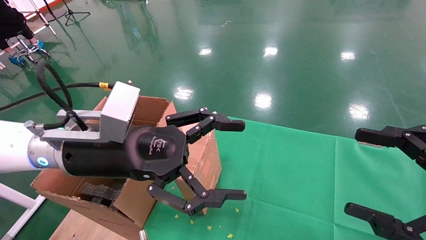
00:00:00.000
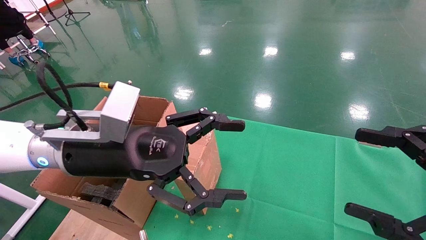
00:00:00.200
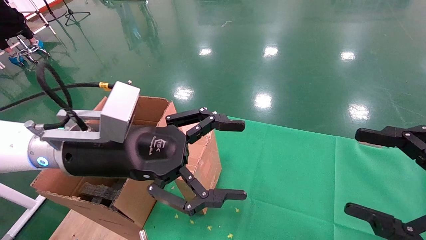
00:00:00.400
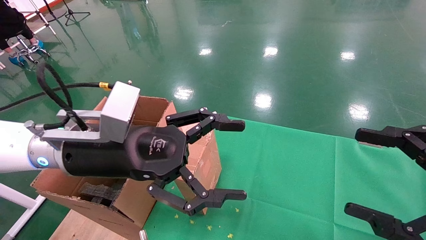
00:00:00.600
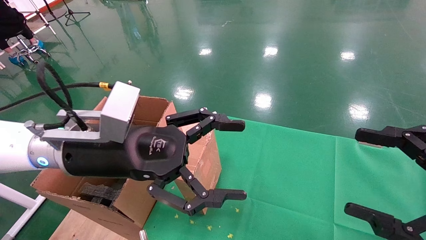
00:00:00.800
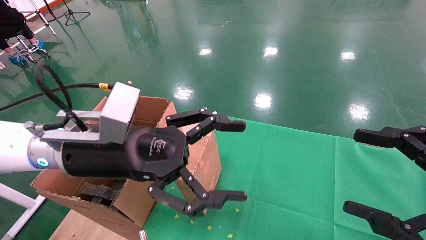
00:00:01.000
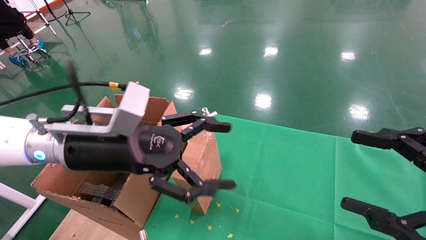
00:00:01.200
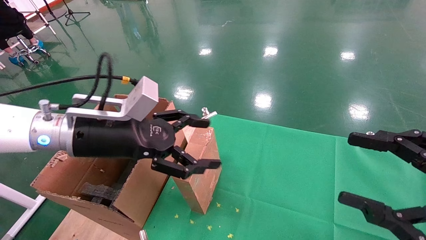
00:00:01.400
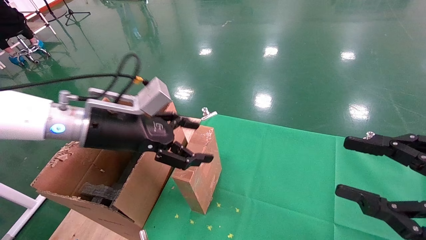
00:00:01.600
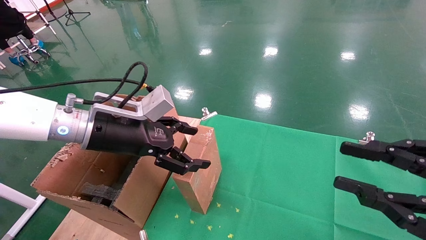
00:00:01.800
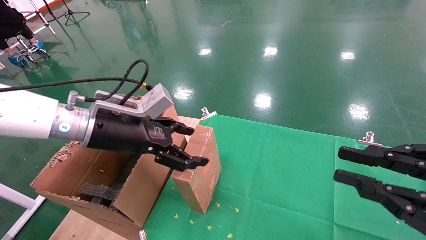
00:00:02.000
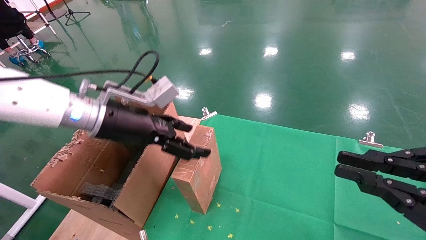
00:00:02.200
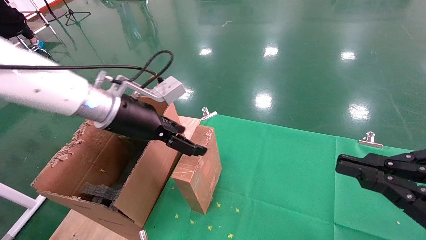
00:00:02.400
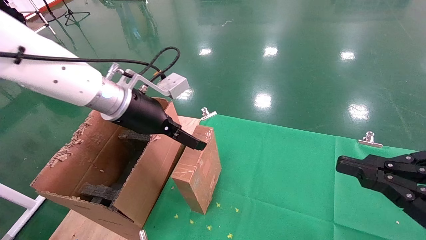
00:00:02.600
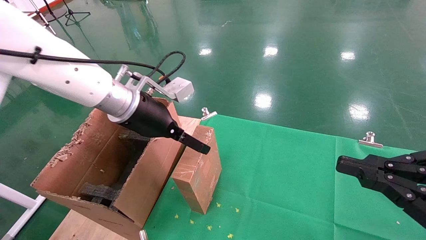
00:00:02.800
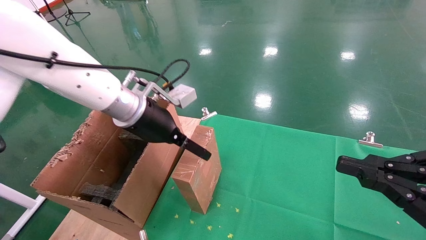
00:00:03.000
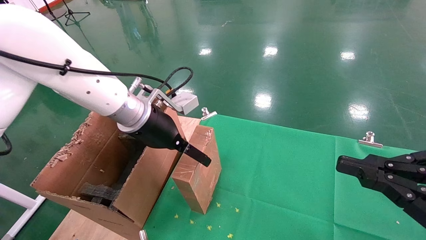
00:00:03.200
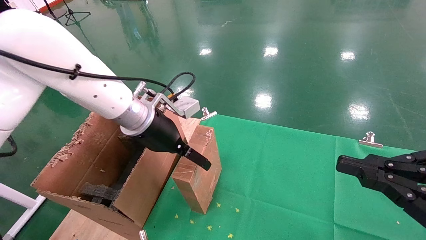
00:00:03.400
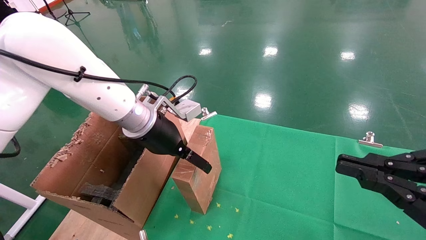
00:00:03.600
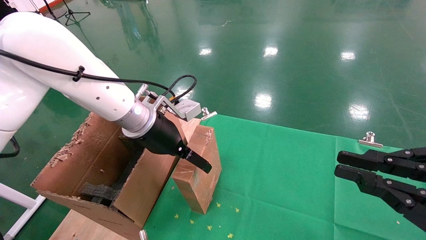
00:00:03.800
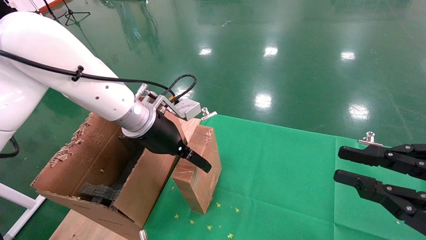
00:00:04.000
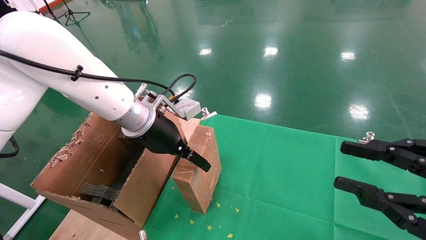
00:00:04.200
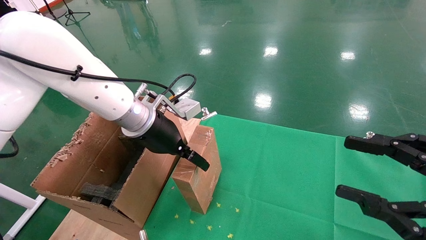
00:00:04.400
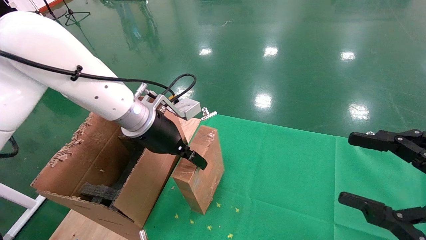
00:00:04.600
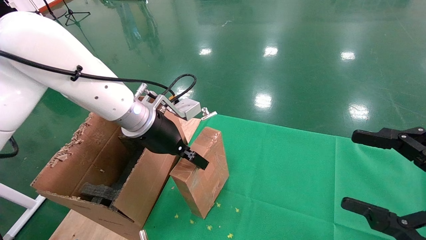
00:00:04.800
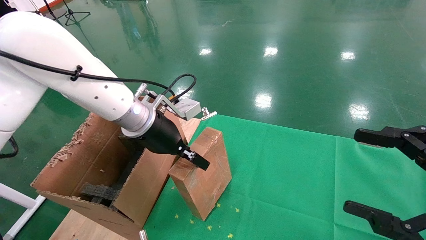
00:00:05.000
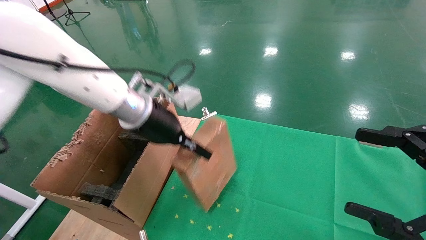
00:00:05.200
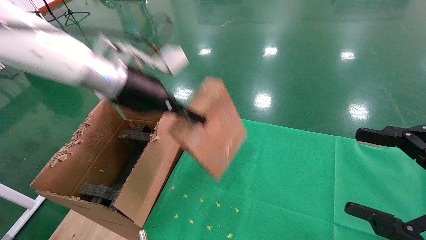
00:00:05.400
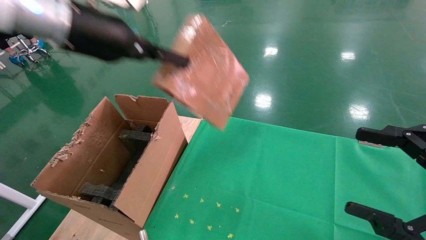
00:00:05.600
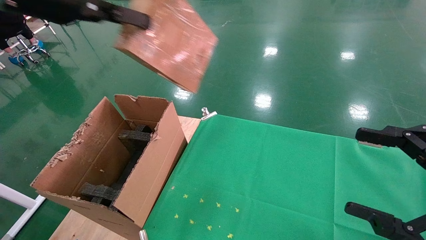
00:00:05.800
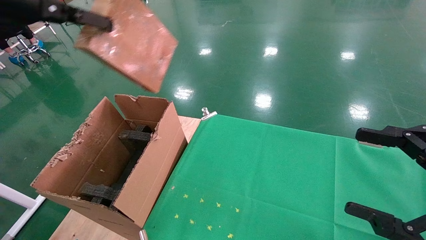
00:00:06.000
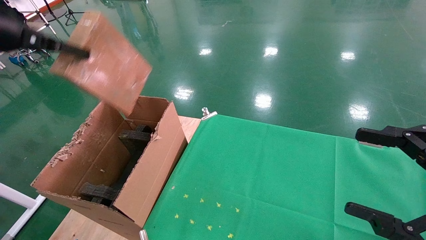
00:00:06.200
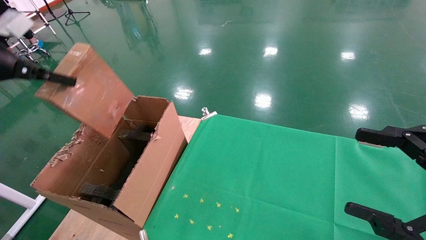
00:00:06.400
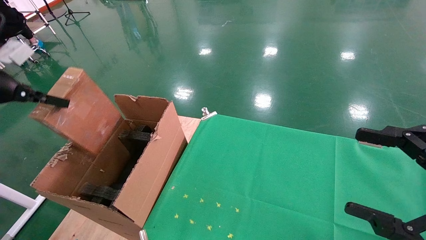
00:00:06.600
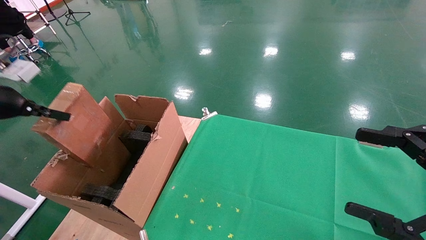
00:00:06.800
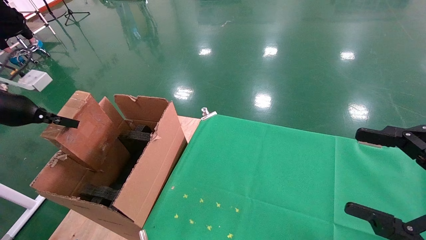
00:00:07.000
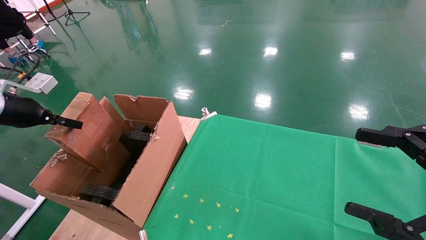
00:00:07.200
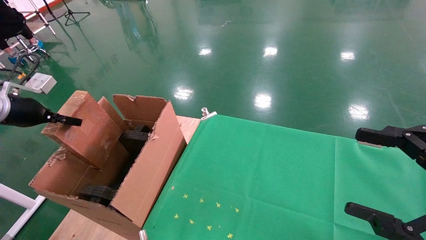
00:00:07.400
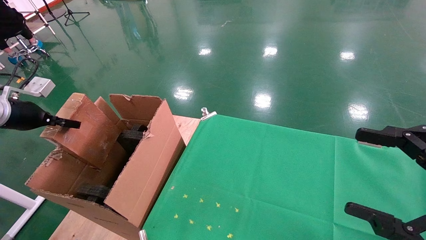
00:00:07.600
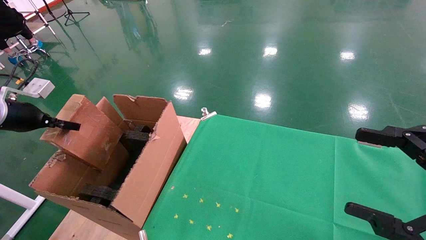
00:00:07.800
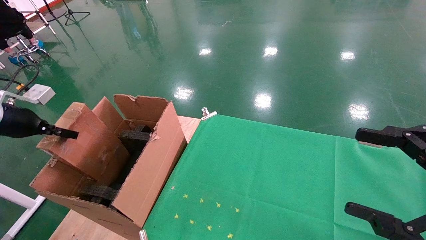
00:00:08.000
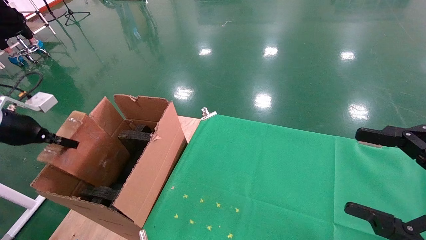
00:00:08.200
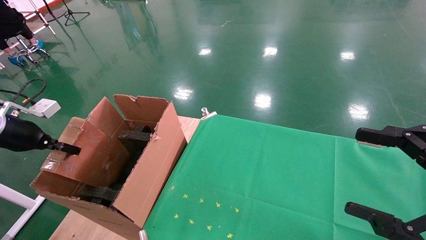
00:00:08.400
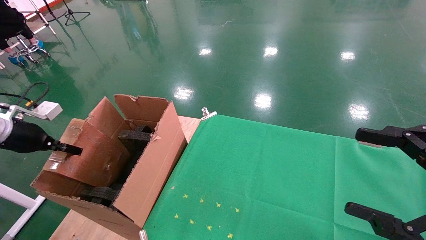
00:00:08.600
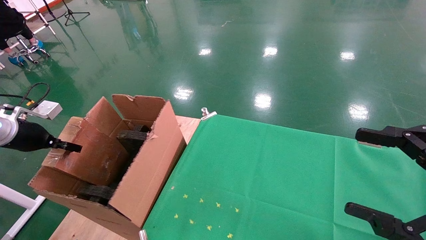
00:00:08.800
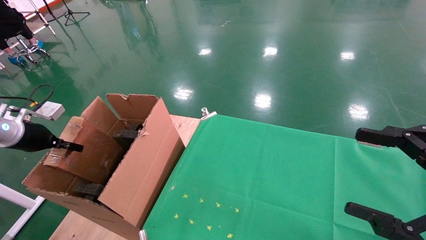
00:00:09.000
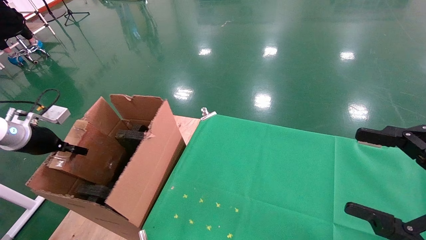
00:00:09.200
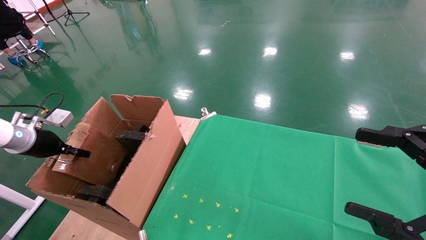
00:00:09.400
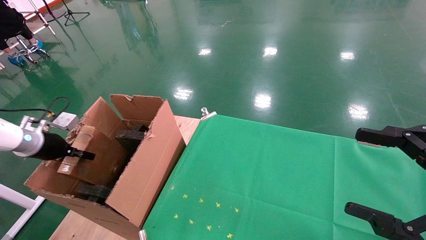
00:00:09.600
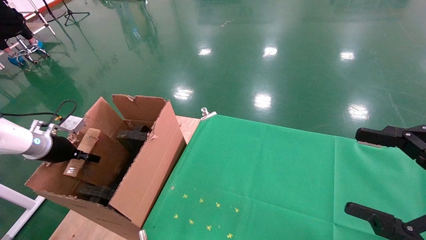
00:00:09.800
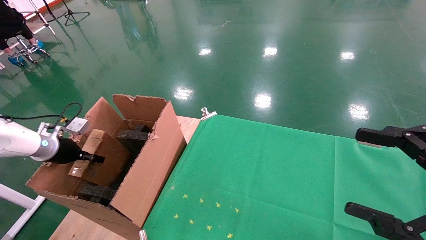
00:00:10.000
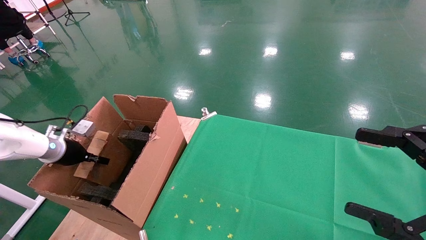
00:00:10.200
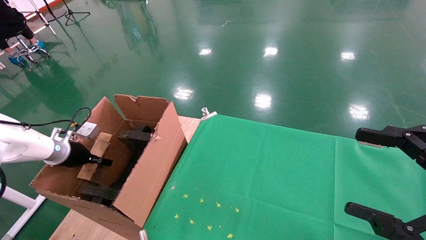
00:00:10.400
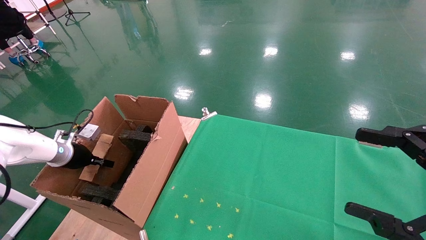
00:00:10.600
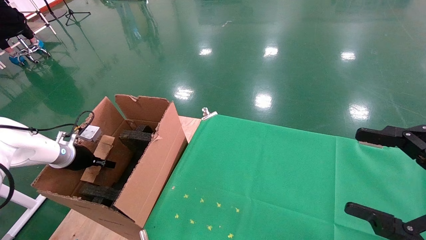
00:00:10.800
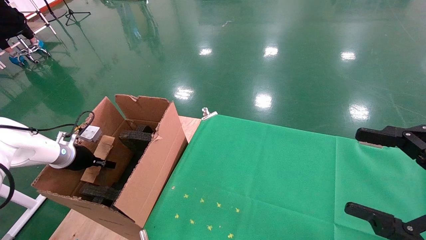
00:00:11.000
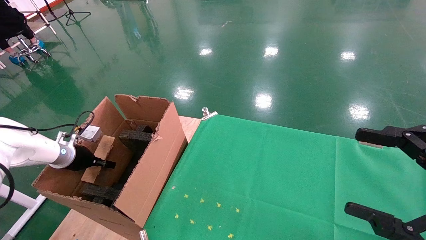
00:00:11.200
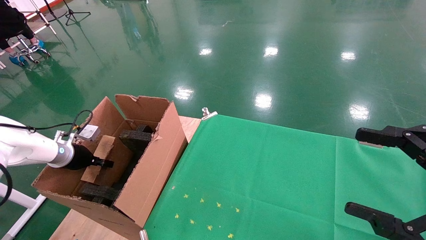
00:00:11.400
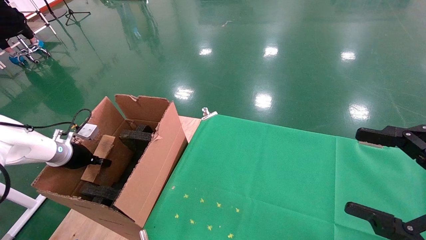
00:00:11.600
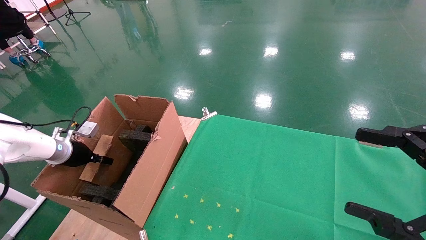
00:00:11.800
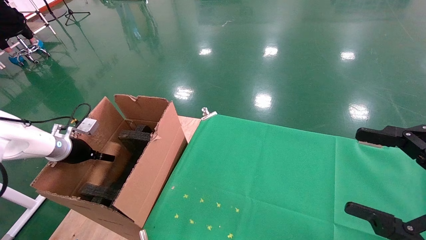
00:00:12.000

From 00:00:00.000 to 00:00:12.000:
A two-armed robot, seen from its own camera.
Task of the whole recording: using a robotic arm to pick up a cardboard box and palace it the carton.
Step, from 00:00:01.400 to 00:00:04.800: Pick up the mouse and the power cord paper box.
From 00:00:00.000 to 00:00:01.600: The left gripper shifts by about 5 cm.
From 00:00:01.600 to 00:00:03.000: The left gripper moves forward, roughly 5 cm, while the right gripper closes its fingers.
From 00:00:03.000 to 00:00:04.400: The right gripper opens up.
From 00:00:04.400 to 00:00:06.000: The left gripper is displaced to the left, upward and backward by some 30 cm, and closes up. Meanwhile the right gripper opens.
From 00:00:06.000 to 00:00:07.600: The left gripper moves downward and to the left, some 25 cm.
From 00:00:07.600 to 00:00:09.000: The left gripper is displaced downward by some 5 cm.
From 00:00:09.000 to 00:00:10.400: The left gripper goes approximately 10 cm downward and forward.
From 00:00:10.400 to 00:00:12.000: The left gripper opens up.

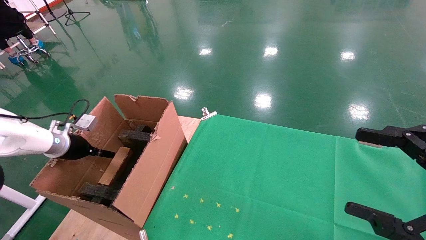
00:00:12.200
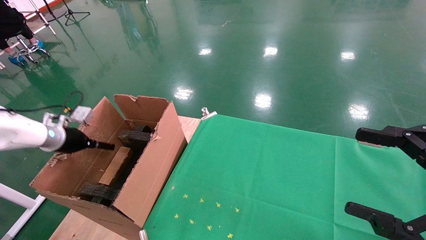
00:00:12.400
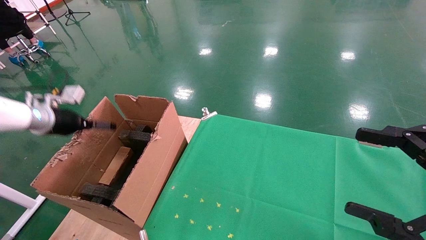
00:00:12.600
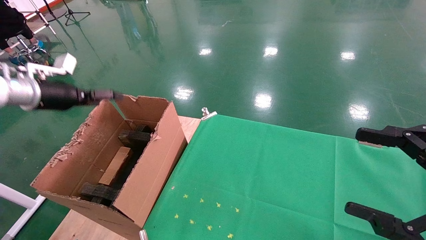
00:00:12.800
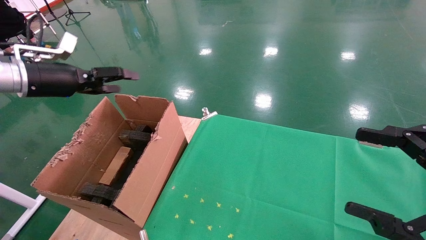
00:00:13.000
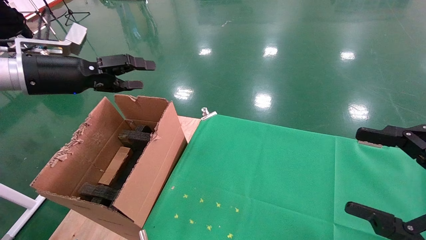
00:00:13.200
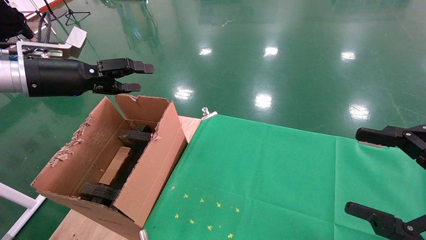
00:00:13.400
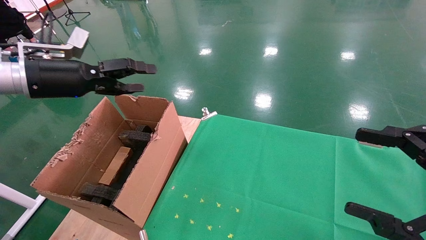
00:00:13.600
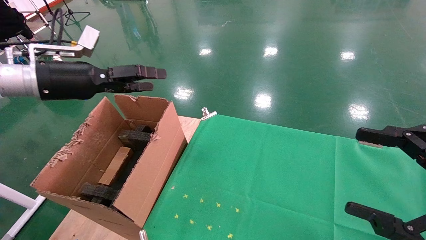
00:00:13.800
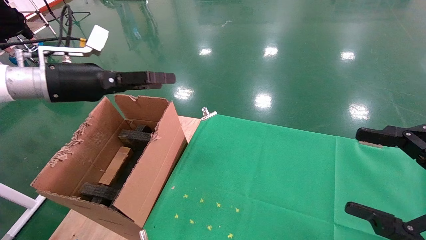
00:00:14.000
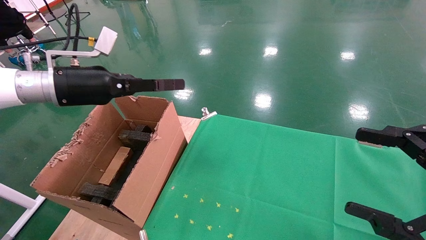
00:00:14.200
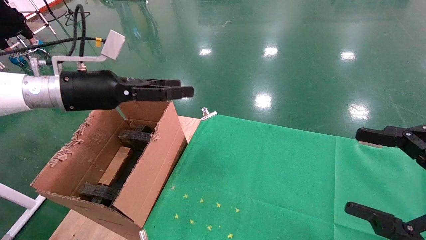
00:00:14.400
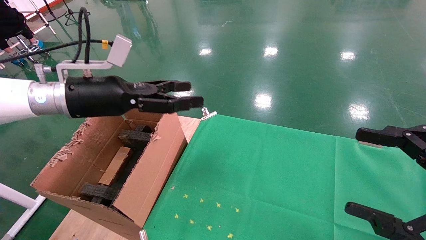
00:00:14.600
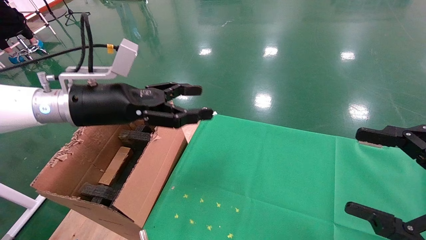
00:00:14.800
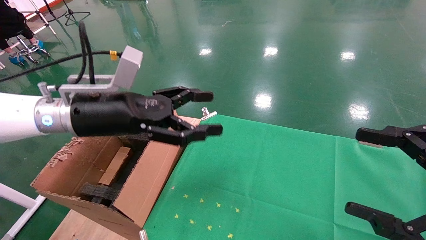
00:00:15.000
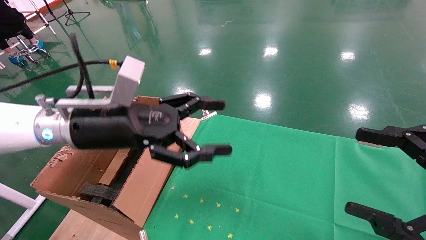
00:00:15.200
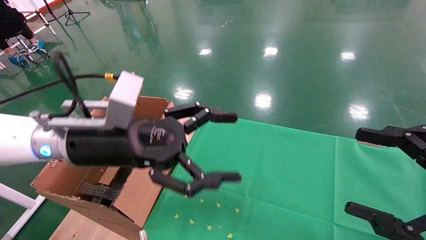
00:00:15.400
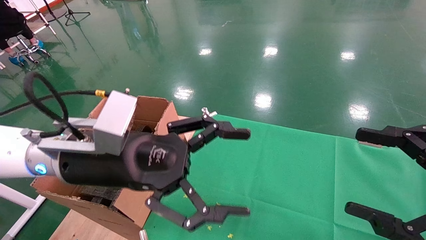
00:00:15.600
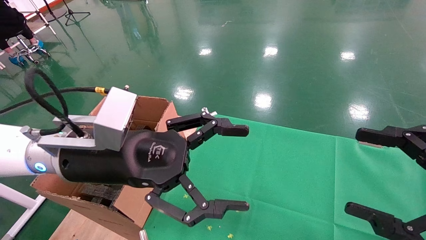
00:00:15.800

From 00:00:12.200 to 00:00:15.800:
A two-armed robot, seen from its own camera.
Task of the whole recording: using a robotic arm to pick up a cardboard box and palace it the carton.
From 00:00:12.200 to 00:00:14.000: The left gripper heads upward and to the right, covering approximately 25 cm.
From 00:00:14.000 to 00:00:15.800: The left gripper is displaced to the right, backward and downward by roughly 20 cm.
